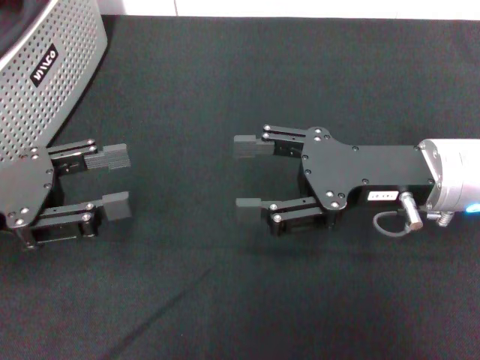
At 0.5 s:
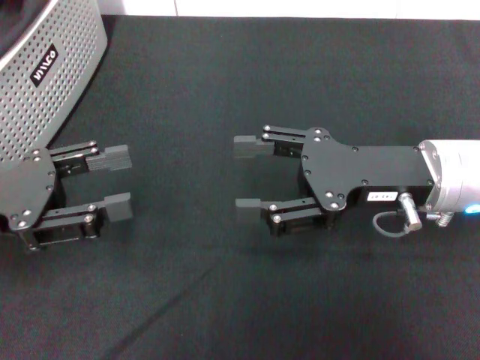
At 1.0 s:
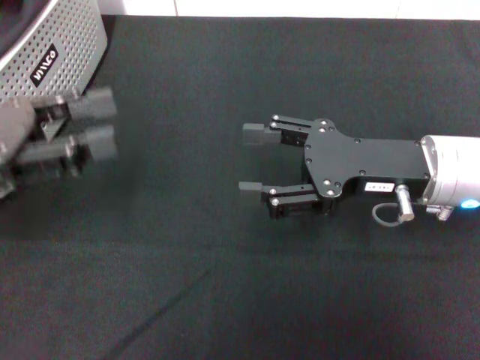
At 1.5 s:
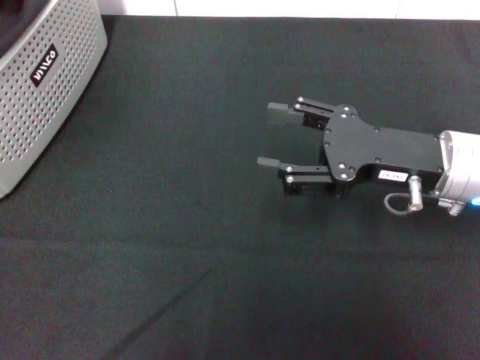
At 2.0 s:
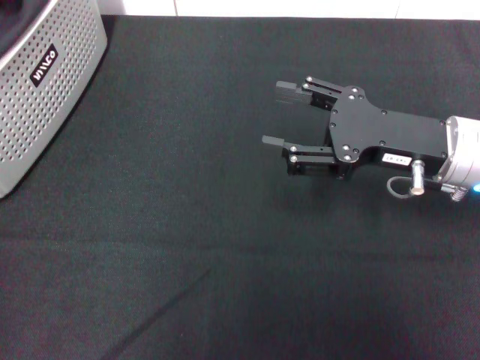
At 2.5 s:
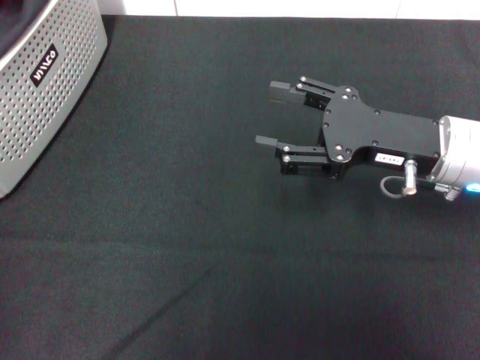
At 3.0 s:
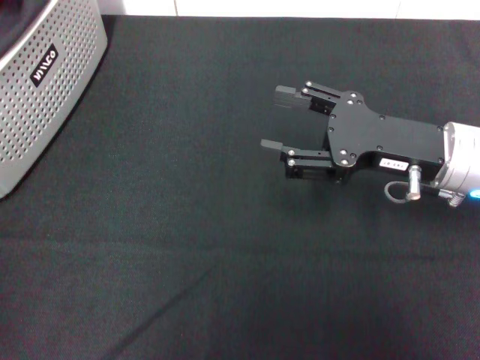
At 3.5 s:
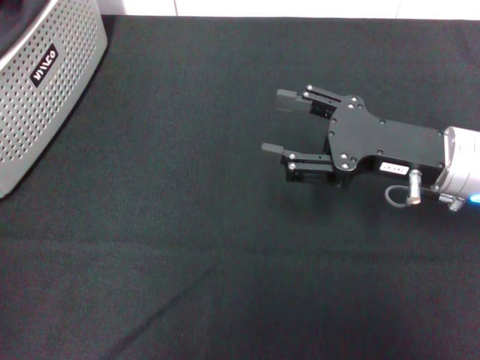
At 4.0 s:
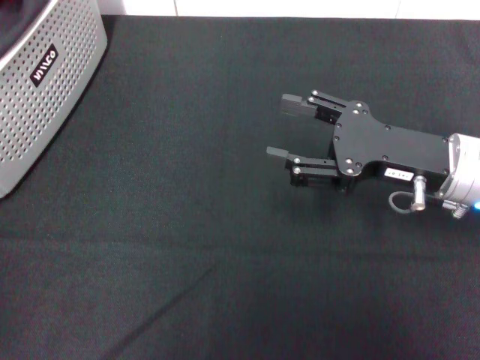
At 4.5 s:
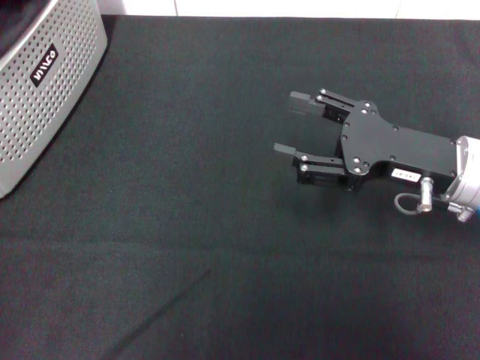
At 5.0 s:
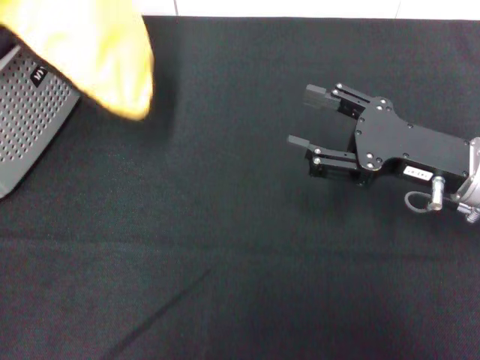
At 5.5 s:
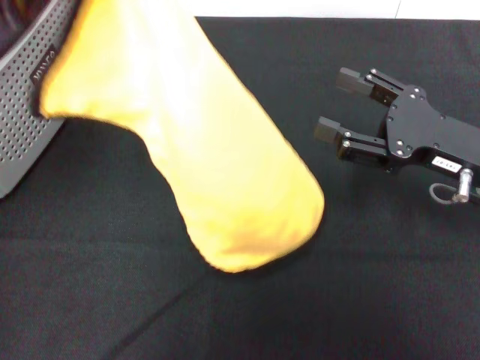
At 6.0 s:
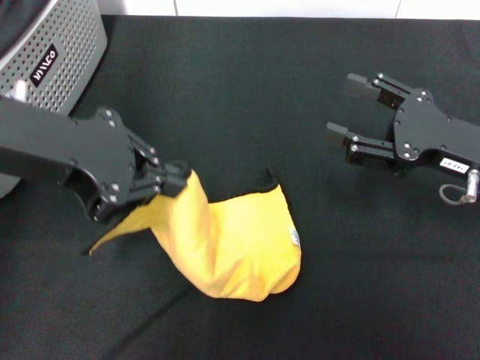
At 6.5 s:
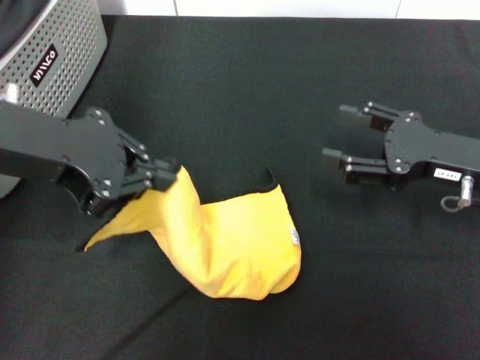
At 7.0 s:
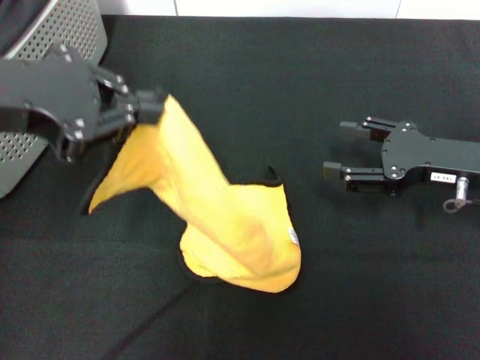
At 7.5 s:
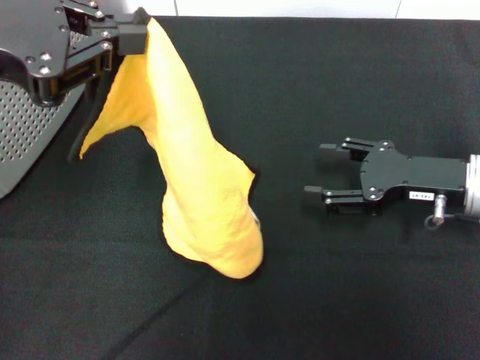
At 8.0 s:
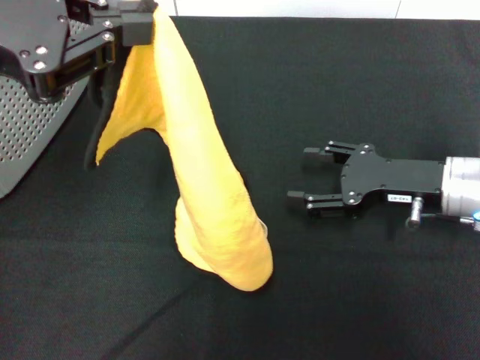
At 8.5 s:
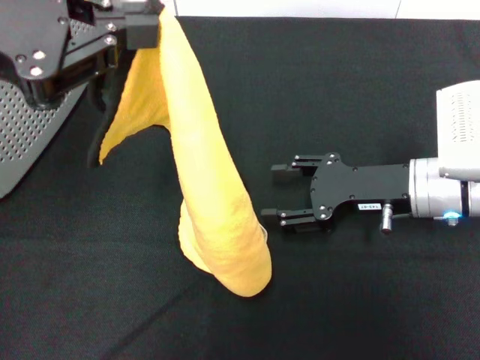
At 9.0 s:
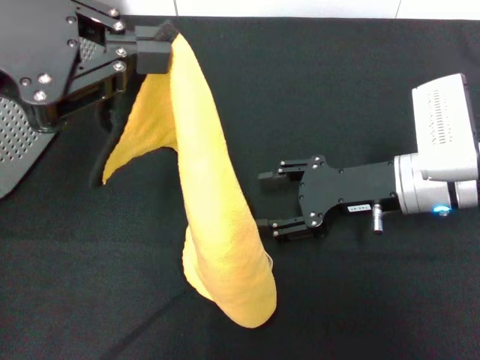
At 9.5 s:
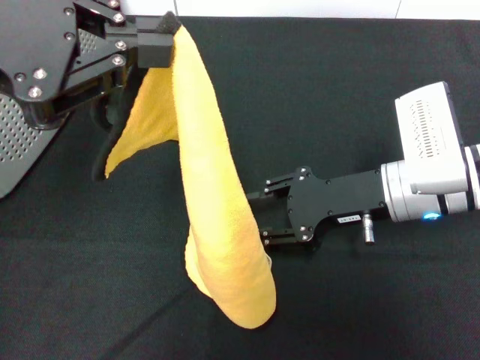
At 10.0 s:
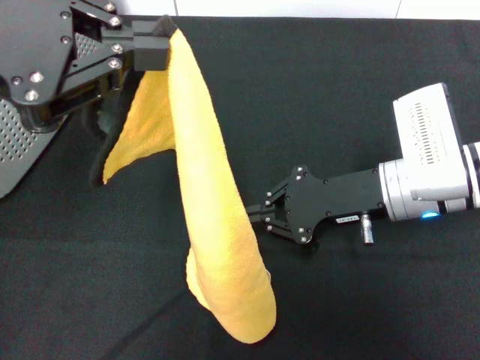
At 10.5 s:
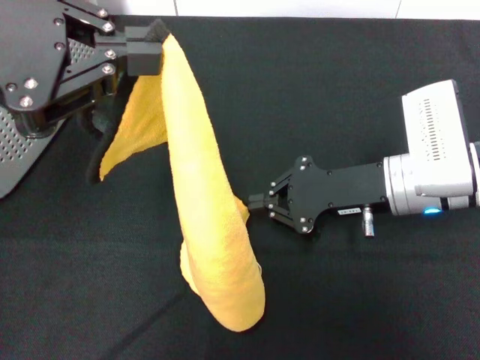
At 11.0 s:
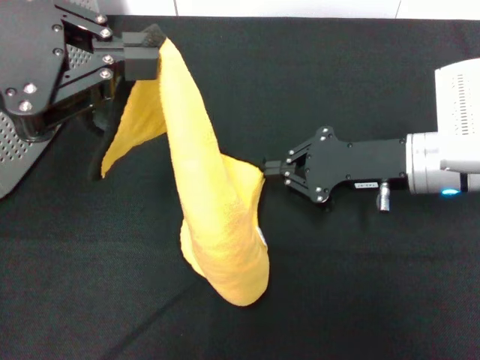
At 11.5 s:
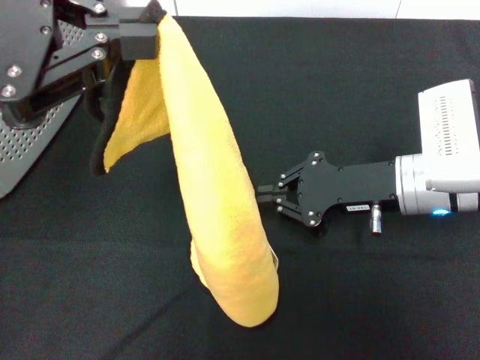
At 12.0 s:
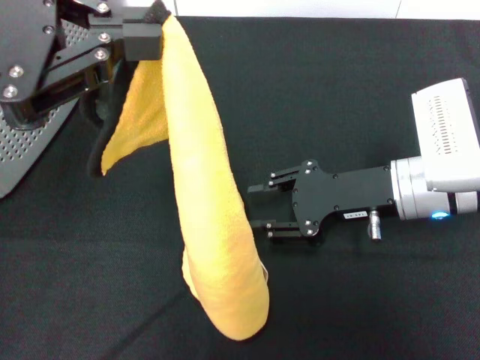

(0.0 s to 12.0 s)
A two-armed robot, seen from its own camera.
Task of the whole recording: pick up the towel from the storage box and lay it flat on the black tablecloth.
Step, 0.0 s - 4.0 s: Pick up a towel with the left gripper.
Step, 4.5 s - 10.0 s: Spread the towel flat with the left gripper.
0.0 s - 2.0 s: The left gripper travels upward by approximately 20 cm.
2.0 s - 4.0 s: The left gripper shifts by approximately 5 cm, and closes its fingers.
4.0 s - 6.0 s: The left gripper moves to the right, approximately 15 cm.
6.0 s - 8.0 s: The left gripper changes place by some 5 cm.
8.0 s - 10.0 s: The right gripper is displaced to the left by approximately 5 cm, and closes its fingers.
10.0 s - 12.0 s: The grippers move only a little.

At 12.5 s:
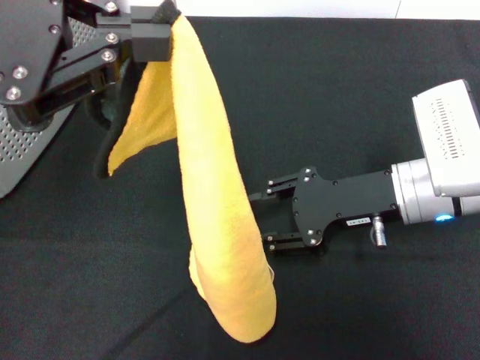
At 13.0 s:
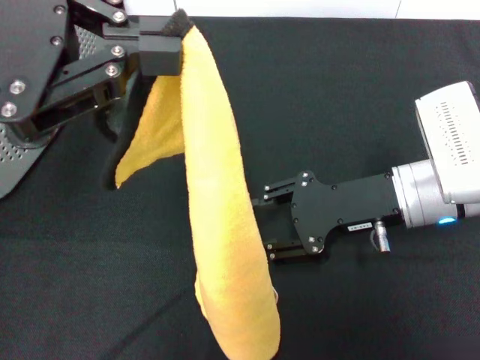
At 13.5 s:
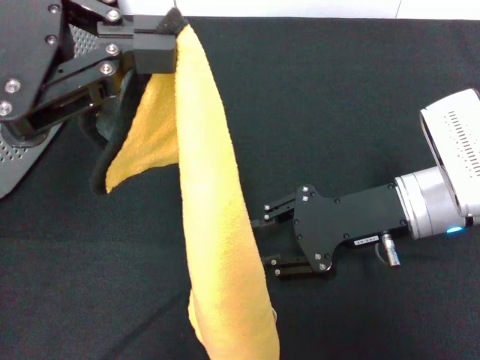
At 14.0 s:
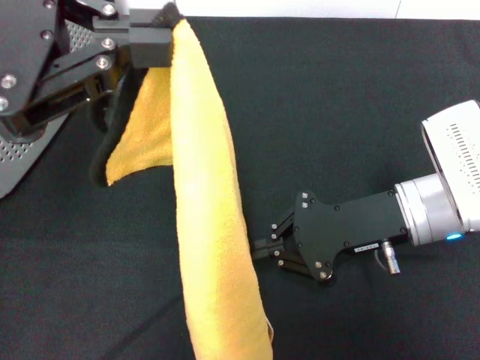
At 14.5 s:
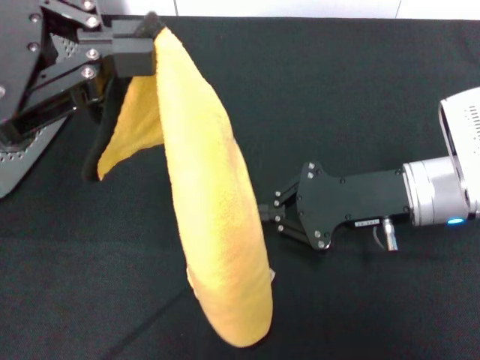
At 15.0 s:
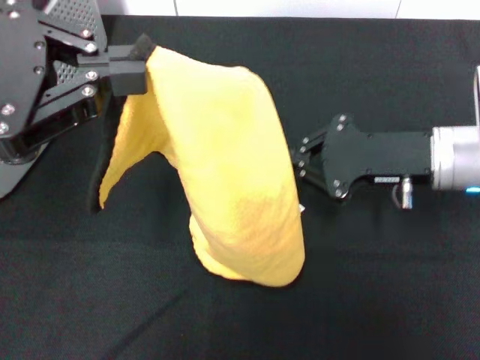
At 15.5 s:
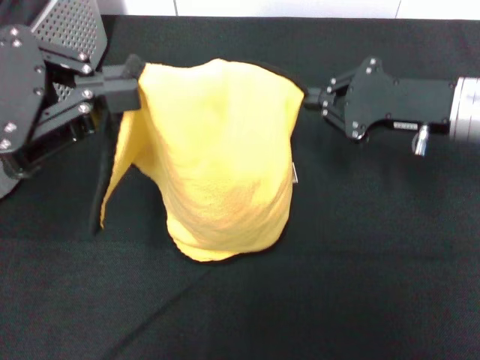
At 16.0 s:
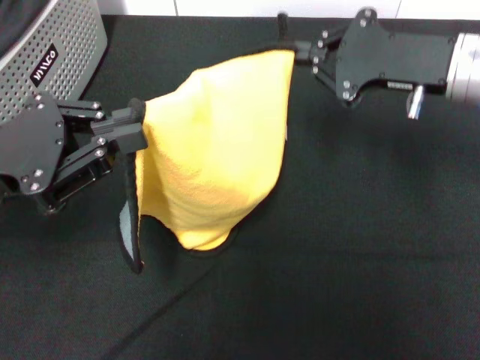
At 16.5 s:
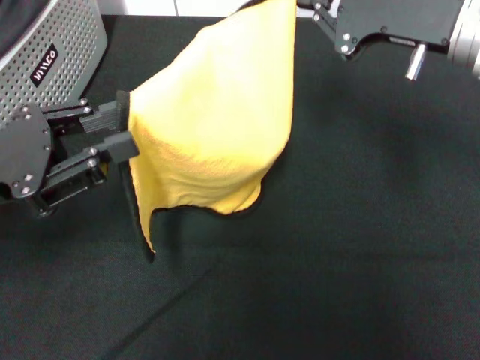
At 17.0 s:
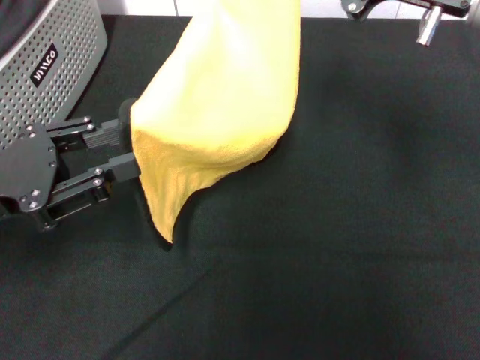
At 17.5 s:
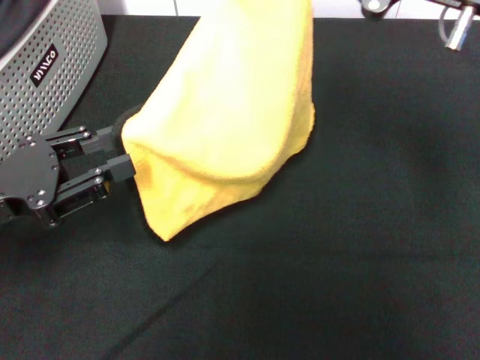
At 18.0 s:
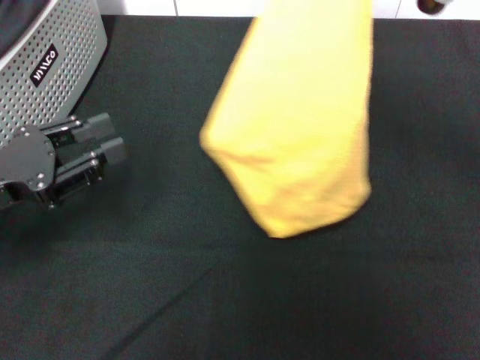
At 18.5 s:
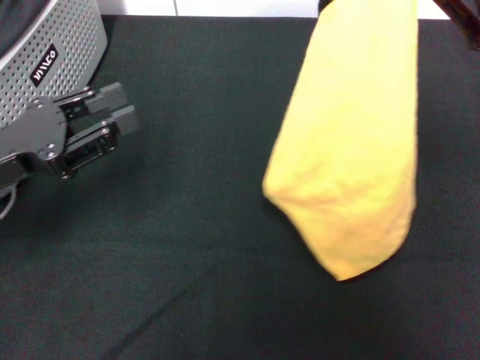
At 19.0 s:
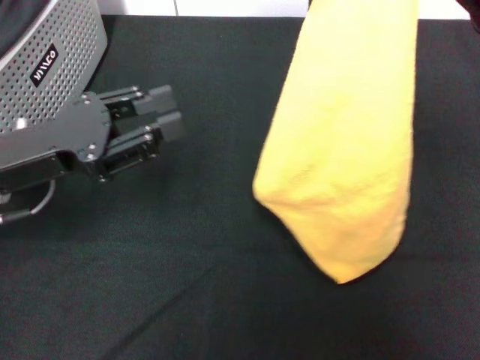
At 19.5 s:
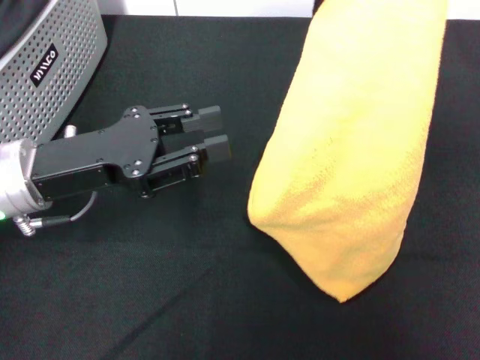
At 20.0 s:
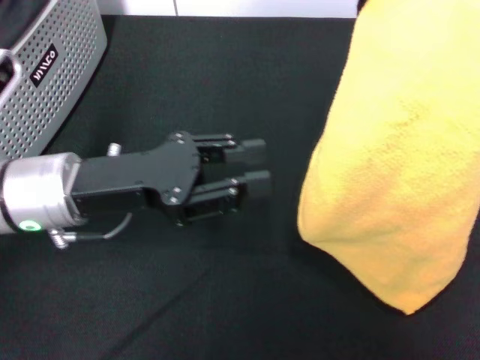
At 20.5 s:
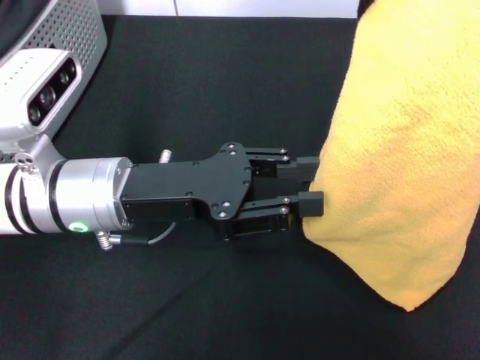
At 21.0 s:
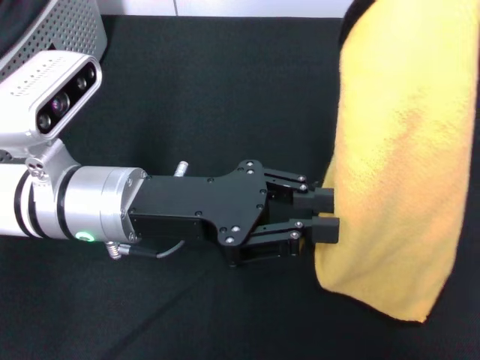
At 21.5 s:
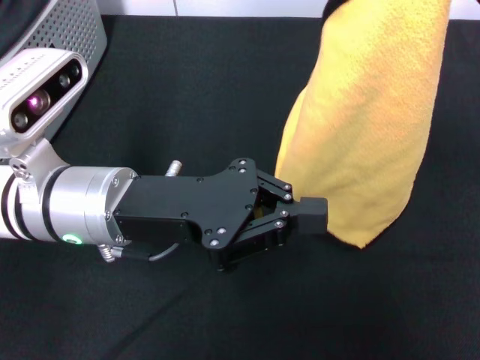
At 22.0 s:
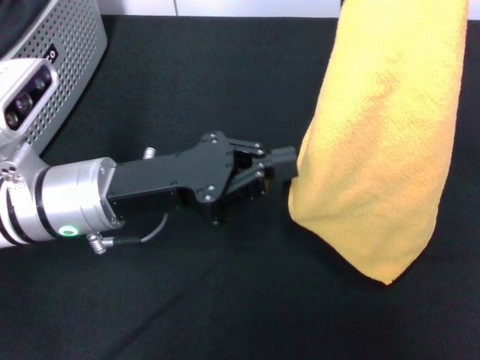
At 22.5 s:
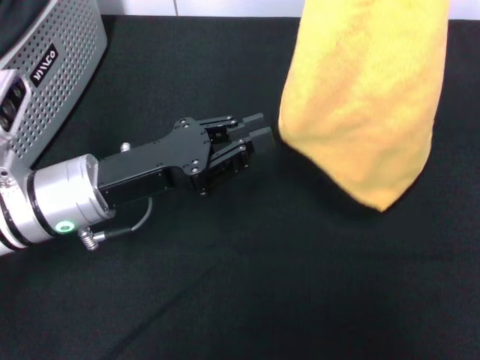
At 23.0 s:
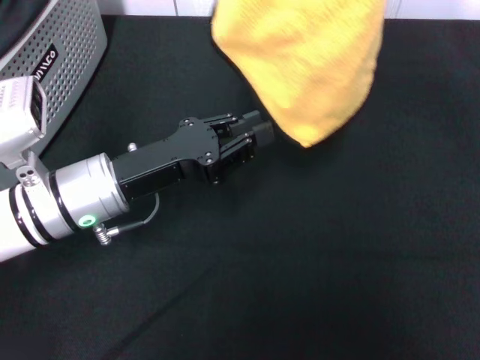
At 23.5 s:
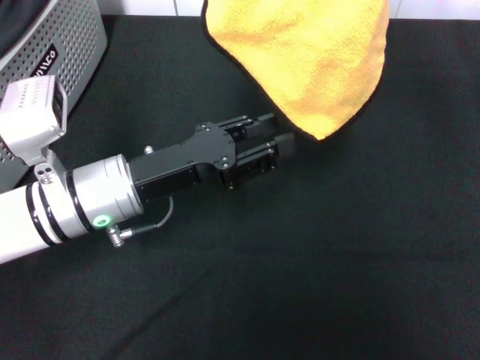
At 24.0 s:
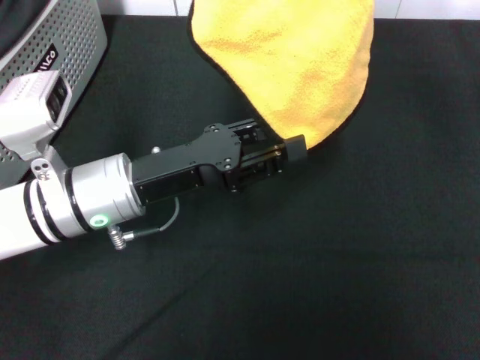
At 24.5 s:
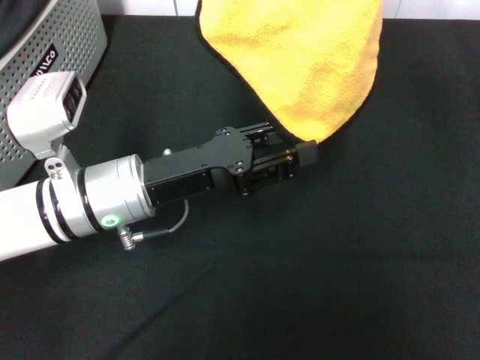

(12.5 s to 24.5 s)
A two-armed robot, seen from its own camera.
Task of the whole recording: pick up the towel from the storage box and lay it flat on the black tablecloth.
12.5 s - 14.5 s: The right gripper closes.
14.5 s - 16.5 s: The right gripper shifts about 10 cm upward and forward; the left gripper goes roughly 15 cm downward.
16.5 s - 18.5 s: The left gripper opens; the right gripper travels to the right by approximately 5 cm.
18.5 s - 20.5 s: The left gripper goes approximately 15 cm to the right.
20.5 s - 22.5 s: The left gripper closes its fingers.
22.5 s - 24.5 s: The right gripper goes about 10 cm to the left and upward. Meanwhile the left gripper opens.

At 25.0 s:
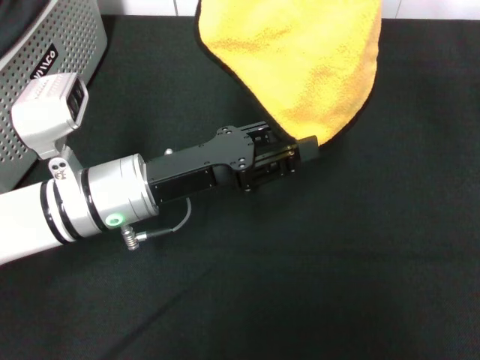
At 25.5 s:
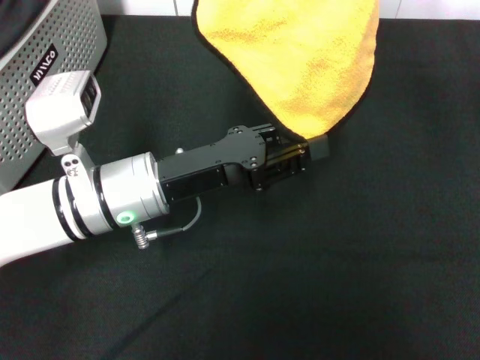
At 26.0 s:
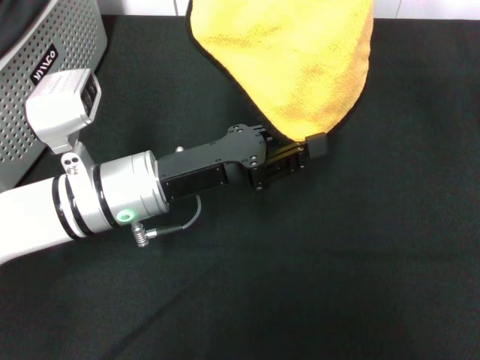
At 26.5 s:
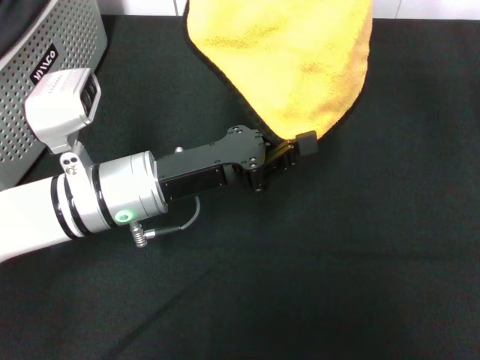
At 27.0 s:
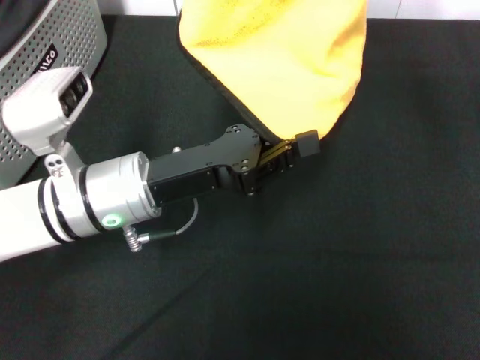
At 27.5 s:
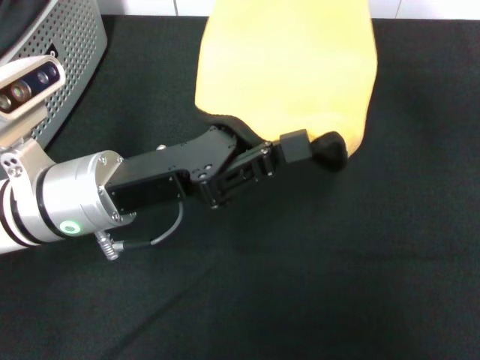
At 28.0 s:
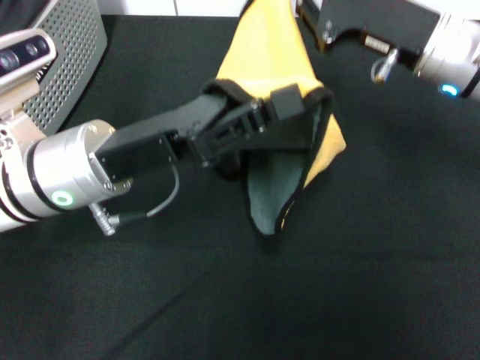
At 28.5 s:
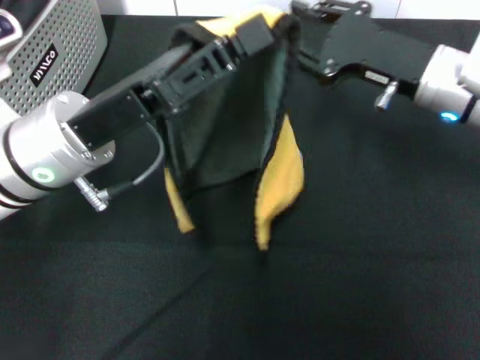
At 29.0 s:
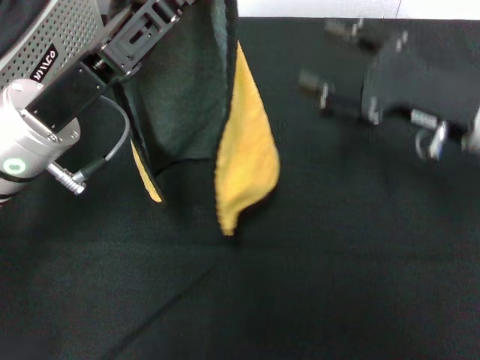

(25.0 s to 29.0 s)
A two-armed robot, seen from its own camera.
Task of the whole recording: pick up the towel from the storage box and lay it flat on the black tablecloth.
25.0 s - 27.0 s: The left gripper closes.
27.0 s - 29.0 s: The left gripper shifts roughly 5 cm upward. The right gripper travels downward by some 15 cm, and opens.
